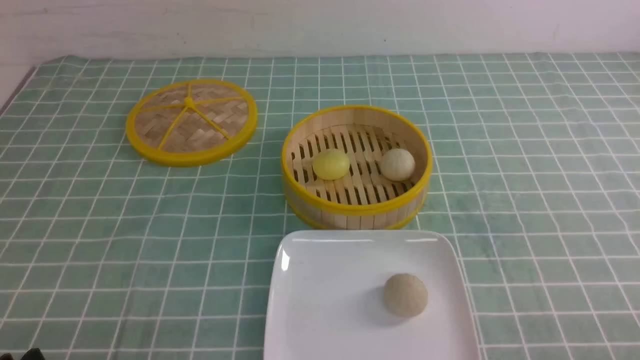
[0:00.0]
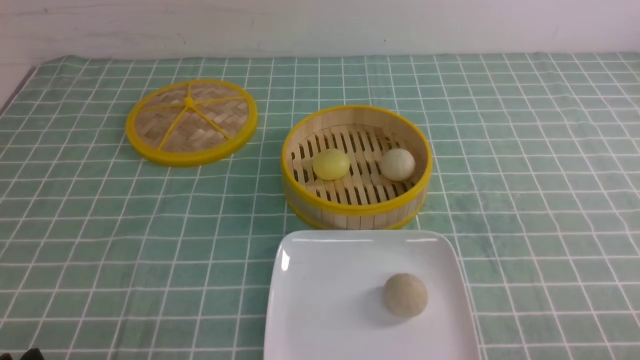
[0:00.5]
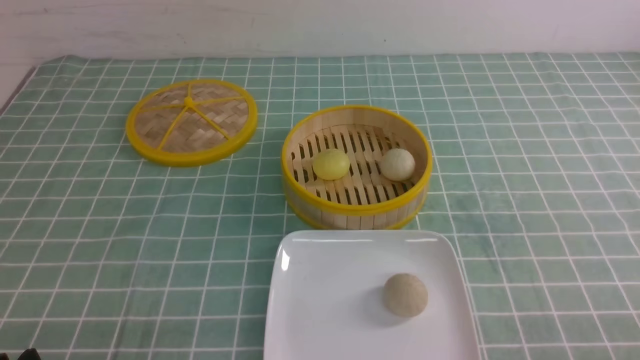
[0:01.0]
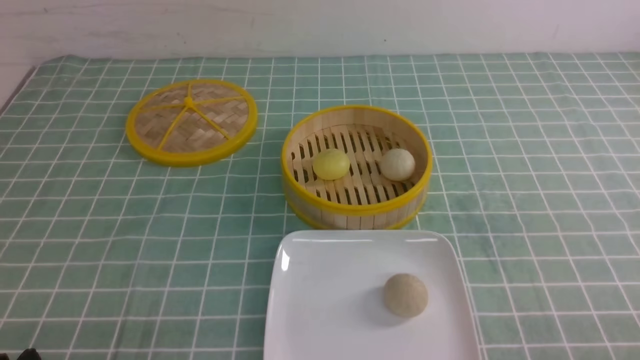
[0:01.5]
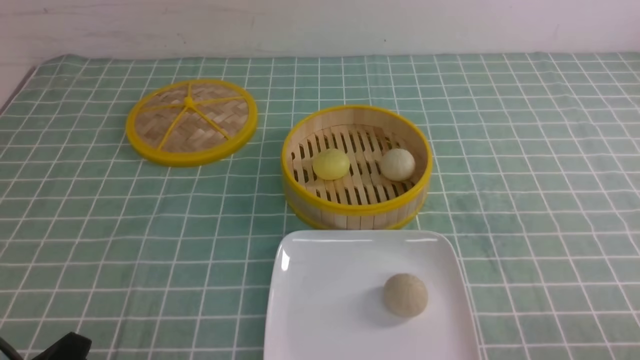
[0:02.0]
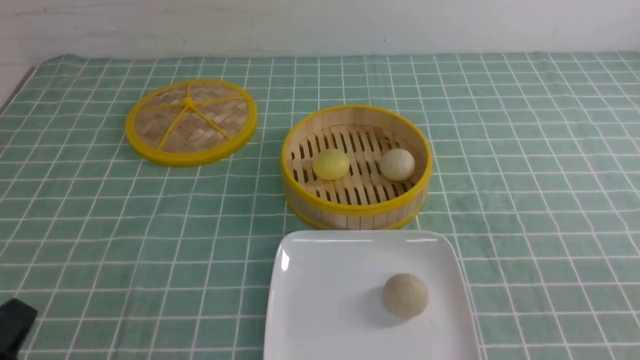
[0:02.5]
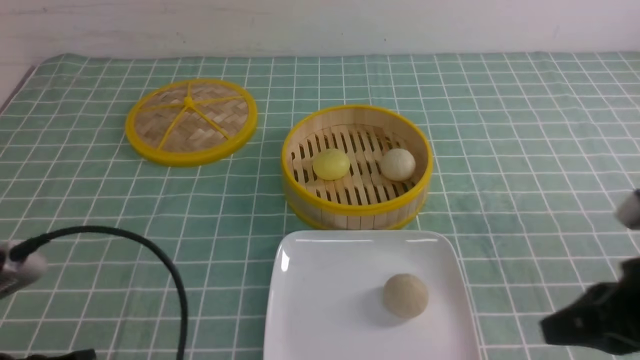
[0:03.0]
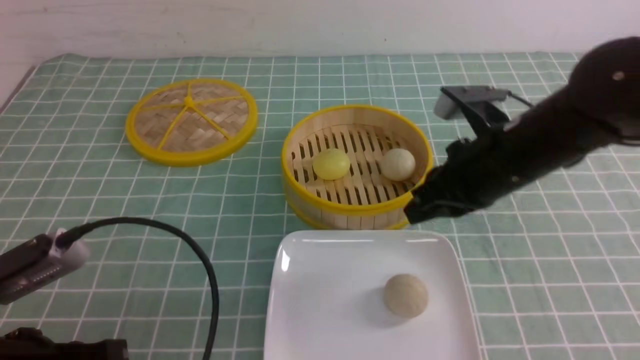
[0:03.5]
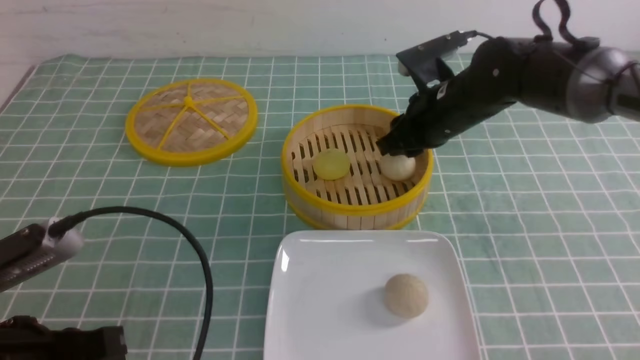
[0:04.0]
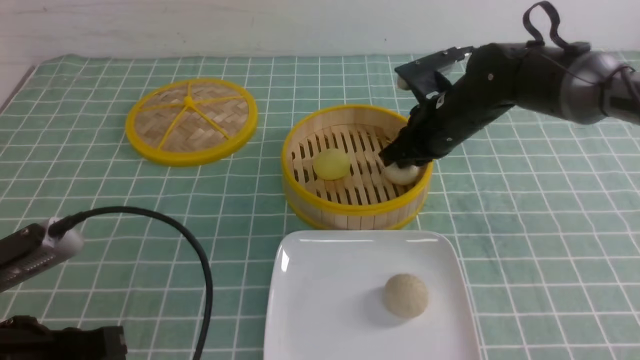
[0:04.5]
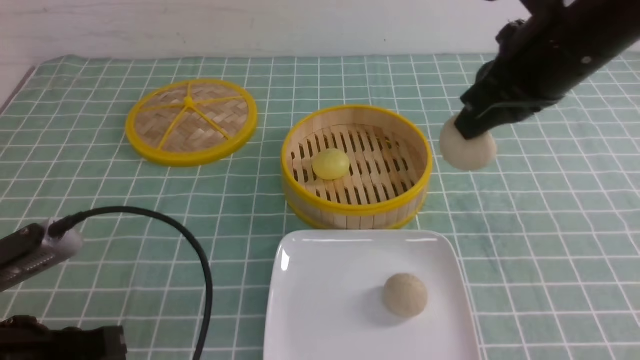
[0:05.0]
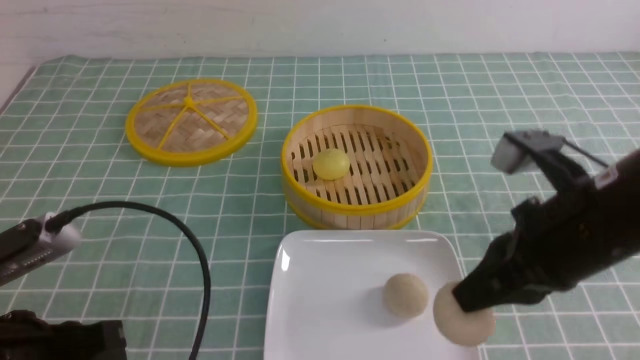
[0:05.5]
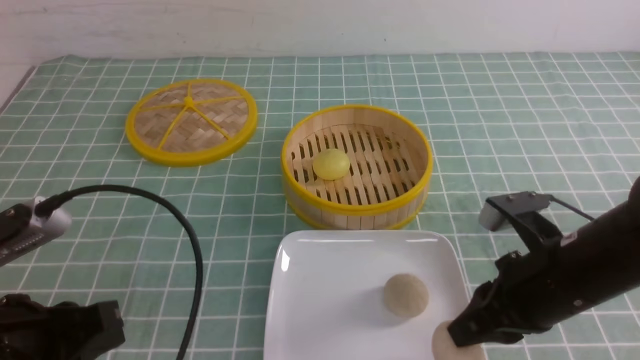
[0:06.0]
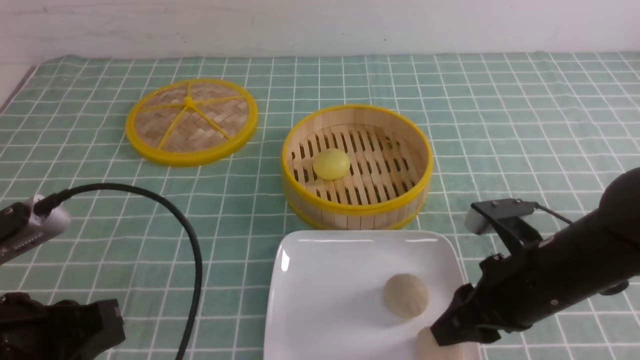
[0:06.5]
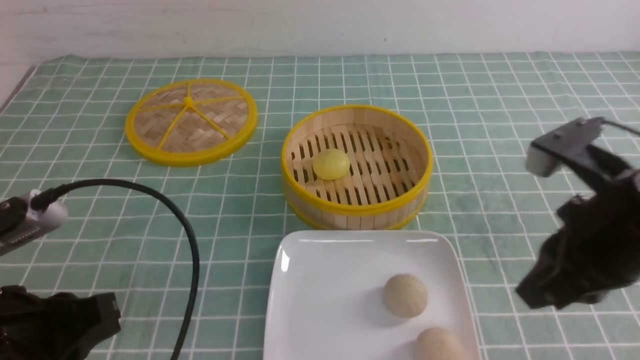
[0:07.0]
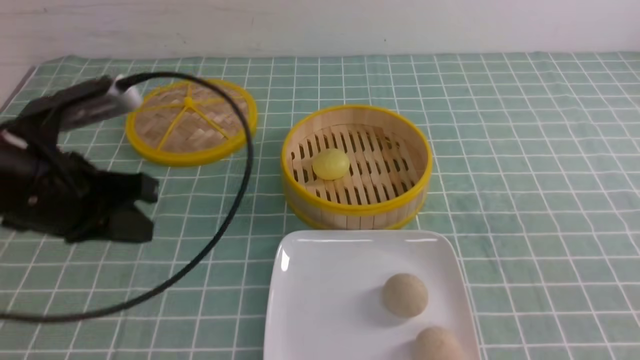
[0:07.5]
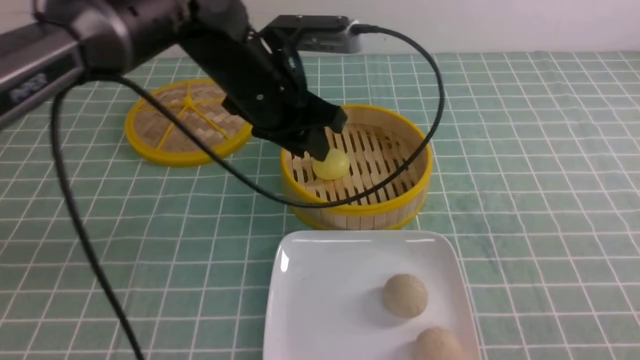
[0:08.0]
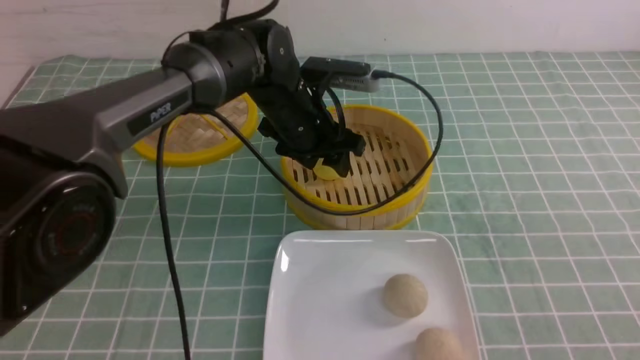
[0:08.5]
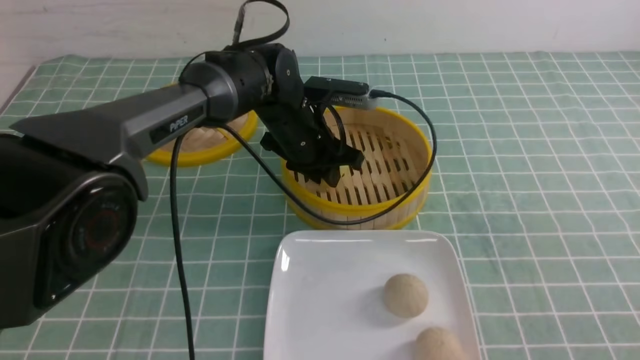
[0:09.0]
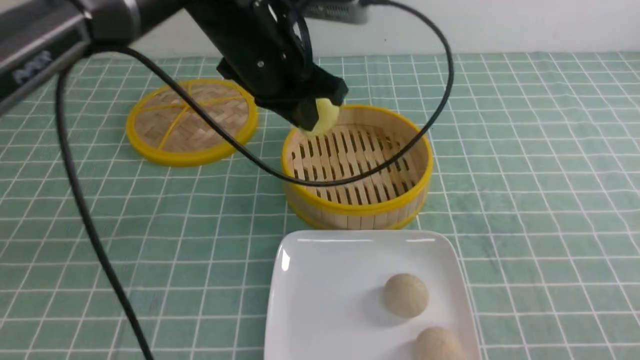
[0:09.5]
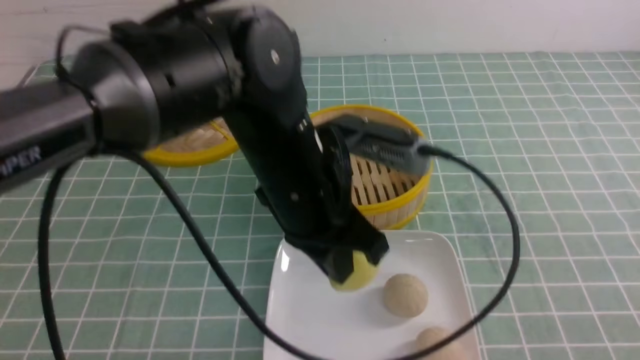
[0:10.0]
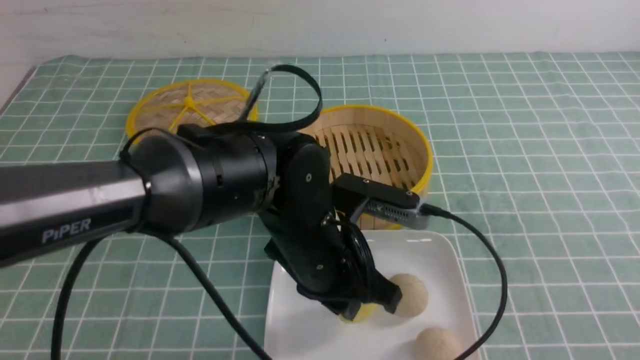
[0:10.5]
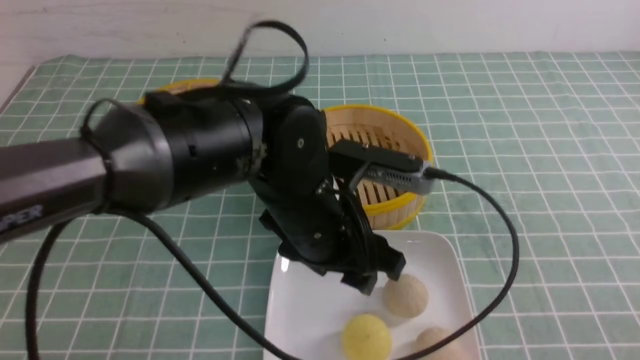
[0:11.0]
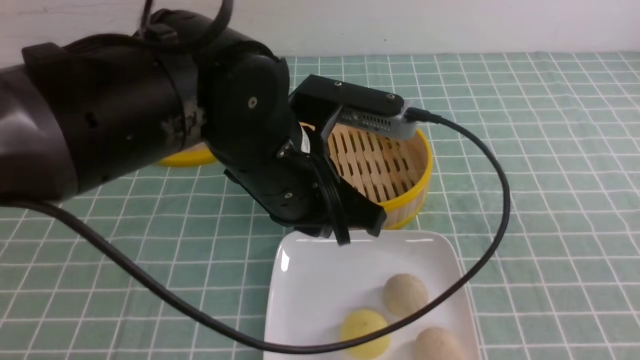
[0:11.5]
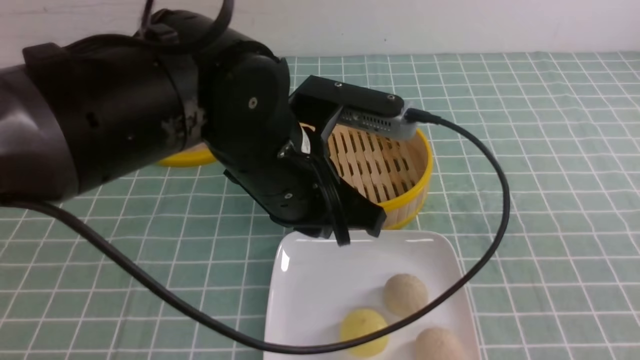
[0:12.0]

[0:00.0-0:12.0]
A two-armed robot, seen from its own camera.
Step, 0:00.0 to 0:04.5: use the right arm to grab the steamed stuffed bun that is closest to it.
Step, 0:05.0 to 0:06.0: use the right arm to put the steamed stuffed bun into the plate.
Step, 0:06.5 to 0:09.0: use the left arm to grab the steamed stuffed bun that is closest to it.
Step, 0:09.5 to 0:10.5: use the left arm to put the steamed stuffed bun into the plate.
0:02.0 to 0:04.0: The left gripper moves upward and forward, about 10 cm, and closes. Meanwhile the right gripper travels forward and to the left by roughly 40 cm, and closes, then opens again.
0:04.0 to 0:06.0: The right gripper heads backward, covering roughly 20 cm, and closes.
0:06.0 to 0:08.0: The left gripper is displaced forward and to the right by some 30 cm, and opens. Meanwhile the right gripper goes roughly 20 cm backward and to the right, and closes.
0:08.0 to 0:10.0: The left gripper heads backward, covering some 10 cm, and closes its fingers.
0:10.0 to 0:12.0: The left gripper goes downward and returns, roughly 5 cm each way, and opens, then closes once more.

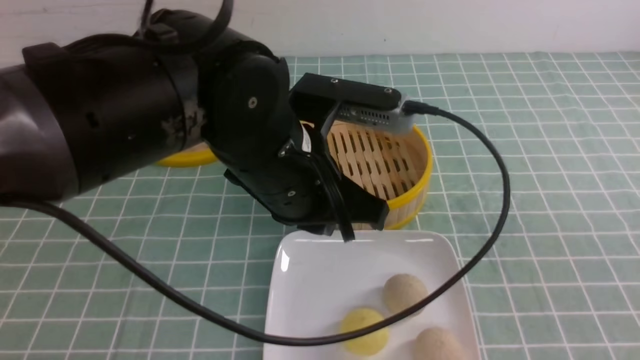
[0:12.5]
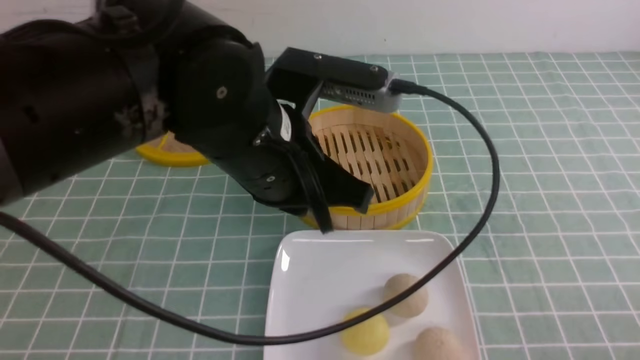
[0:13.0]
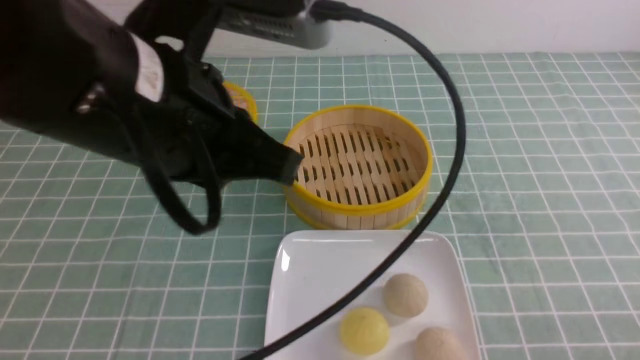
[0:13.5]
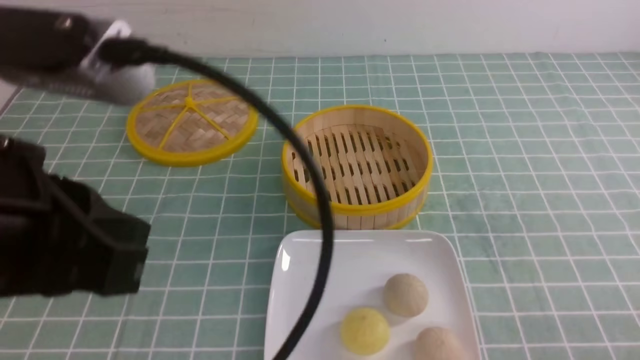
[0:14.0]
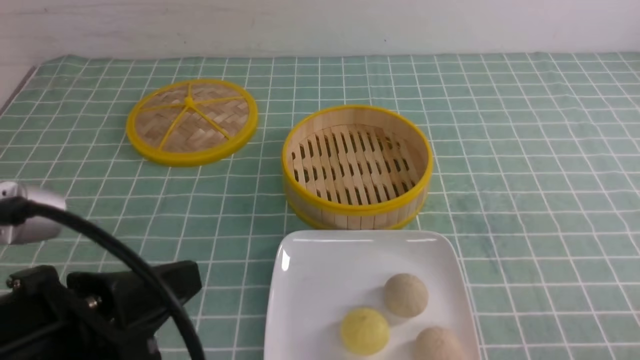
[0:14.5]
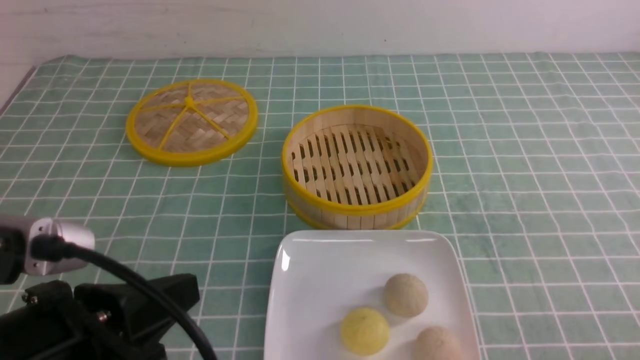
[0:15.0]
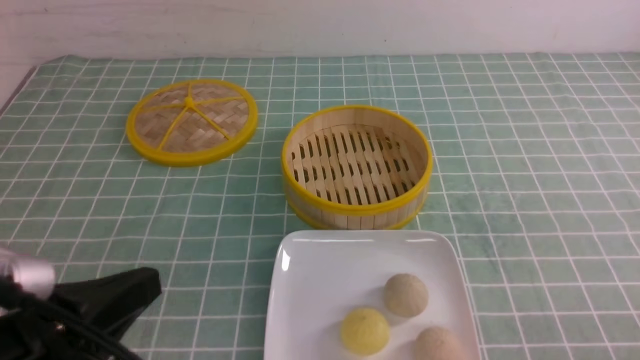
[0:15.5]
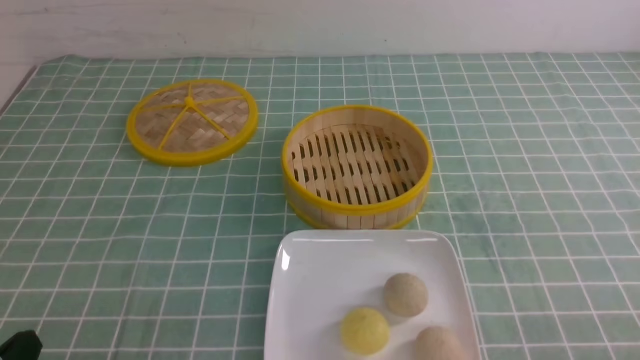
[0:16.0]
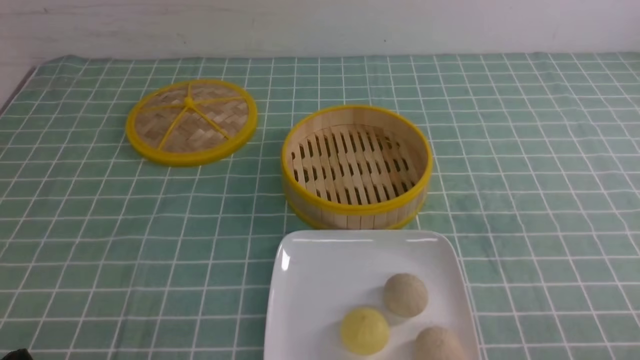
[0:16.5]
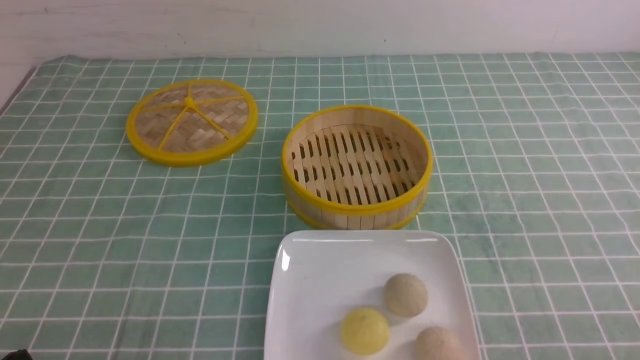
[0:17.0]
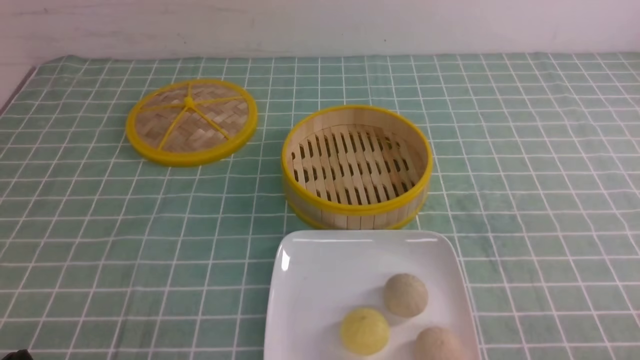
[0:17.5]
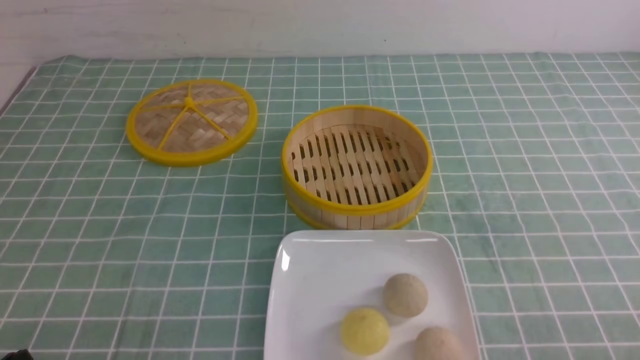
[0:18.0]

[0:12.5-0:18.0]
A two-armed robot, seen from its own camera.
0:12.5 to 0:14.5: The right gripper is displaced downward by some 10 cm; the left gripper shifts some 20 cm backward and to the left.
0:14.5 to 0:16.0: The left gripper travels downward and to the left by some 15 cm.

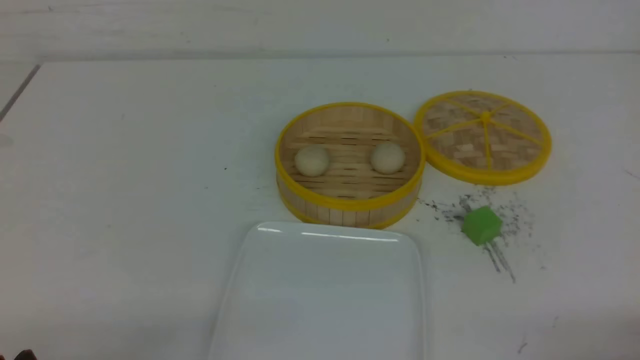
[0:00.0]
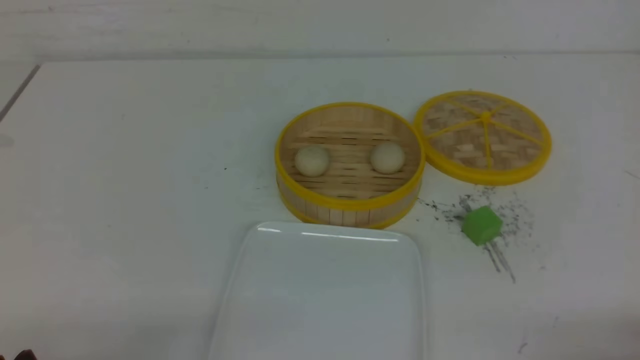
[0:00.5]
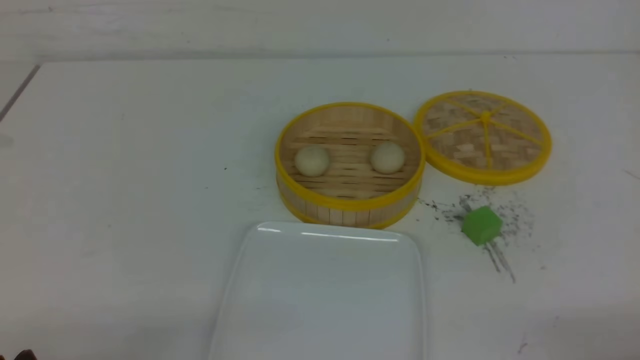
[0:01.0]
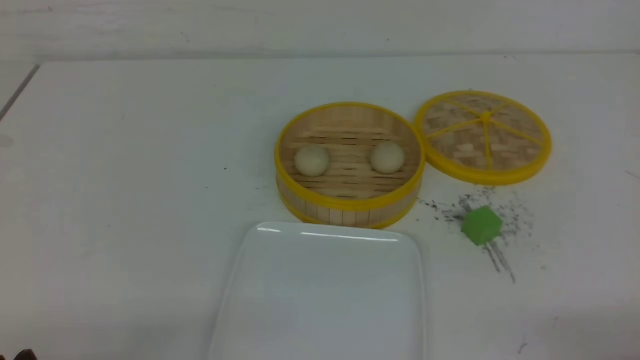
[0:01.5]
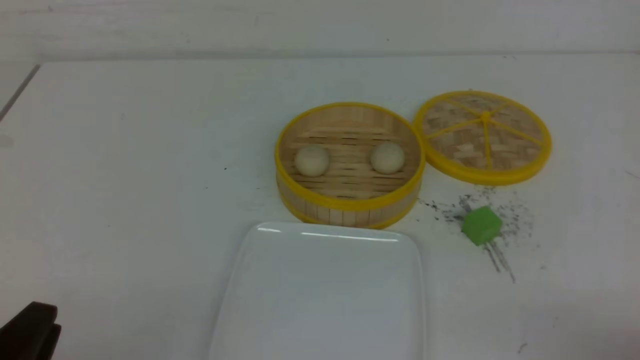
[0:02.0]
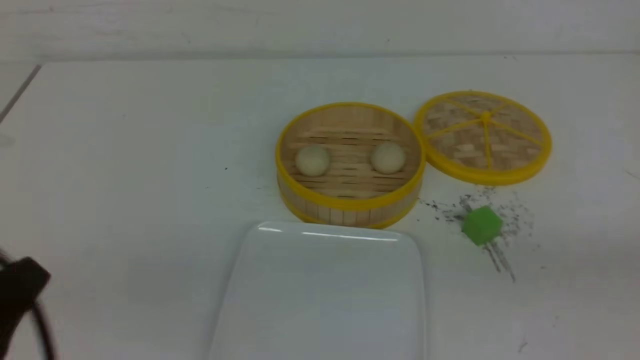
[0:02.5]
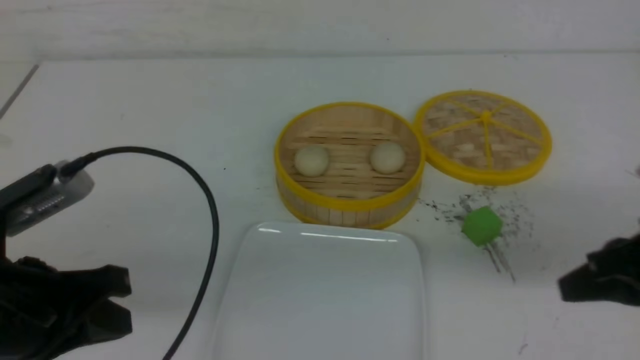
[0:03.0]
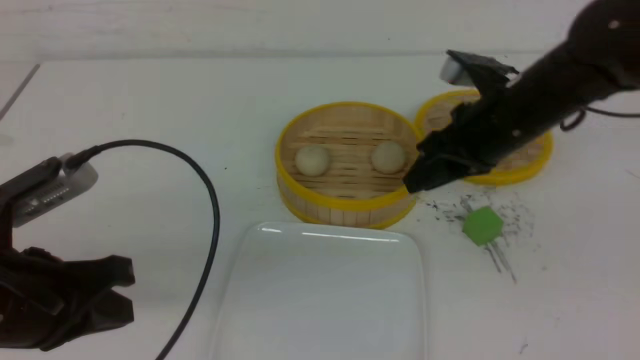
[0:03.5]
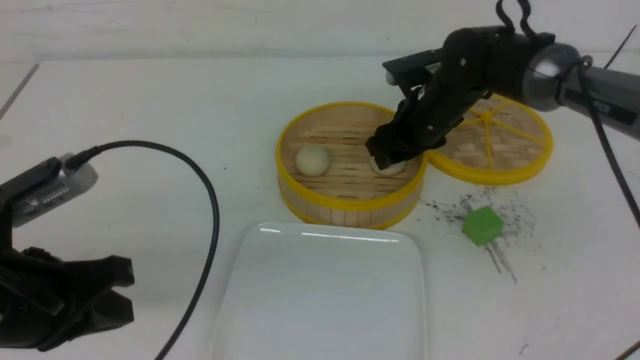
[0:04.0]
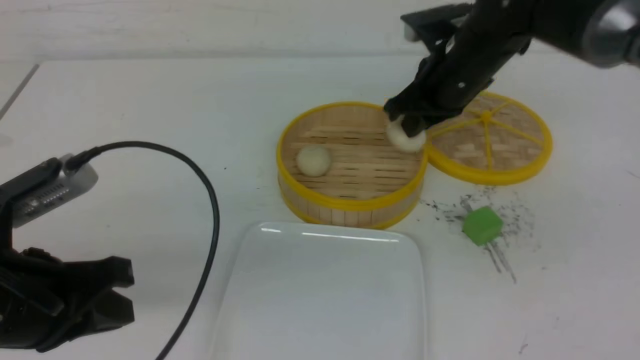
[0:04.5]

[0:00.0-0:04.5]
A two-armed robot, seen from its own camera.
Step, 0:00.0 to 0:04.0: use the right arm to grab the steamed stuffed bun that is closest to it.
0:02.0 to 0:04.5: The right gripper shifts some 40 cm forward and to the left, and closes up, while the left gripper travels forward and upward by some 15 cm, and closes its fingers.
